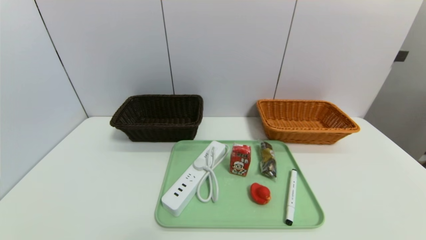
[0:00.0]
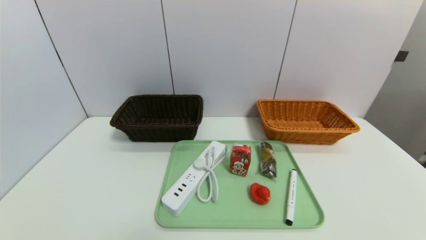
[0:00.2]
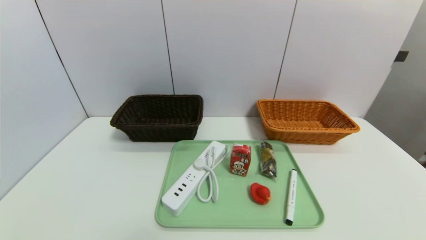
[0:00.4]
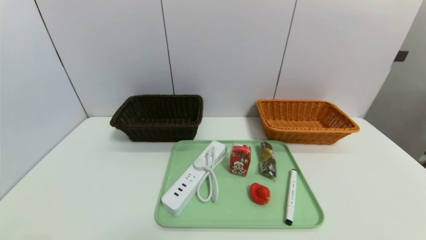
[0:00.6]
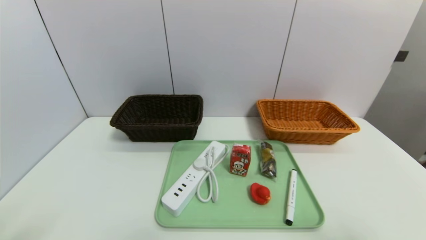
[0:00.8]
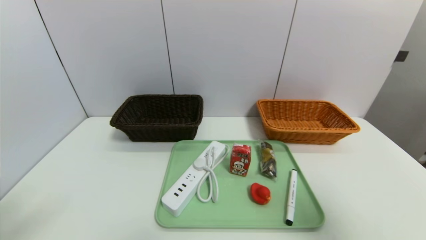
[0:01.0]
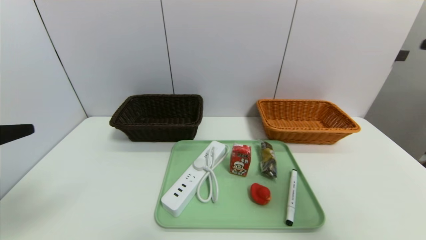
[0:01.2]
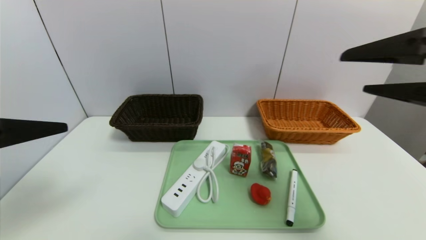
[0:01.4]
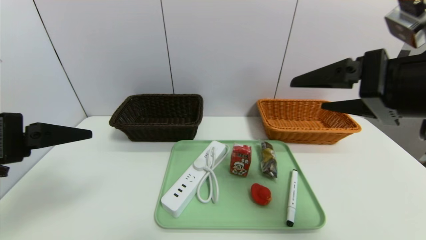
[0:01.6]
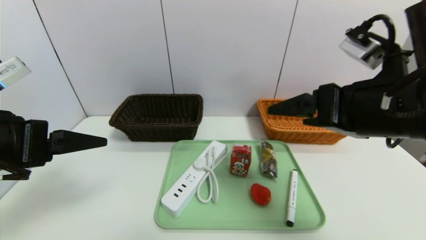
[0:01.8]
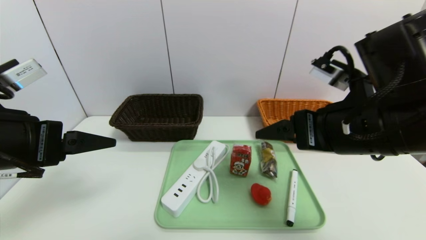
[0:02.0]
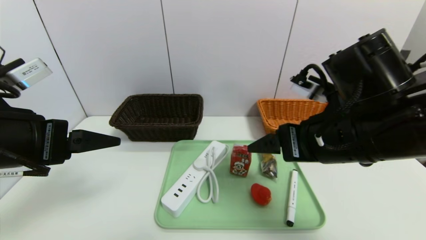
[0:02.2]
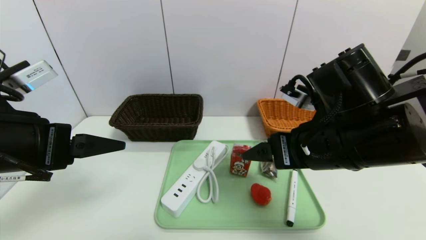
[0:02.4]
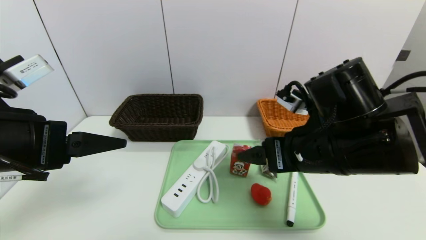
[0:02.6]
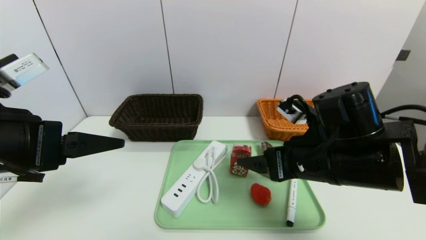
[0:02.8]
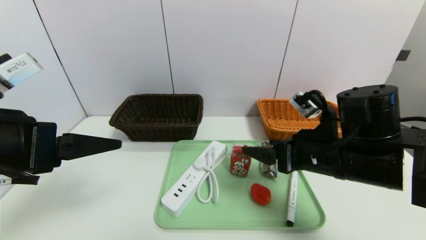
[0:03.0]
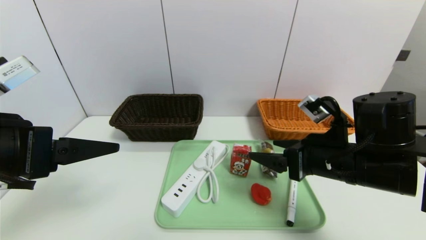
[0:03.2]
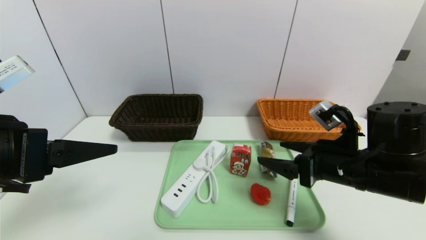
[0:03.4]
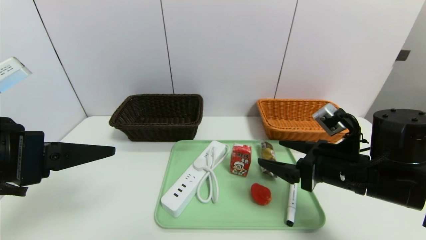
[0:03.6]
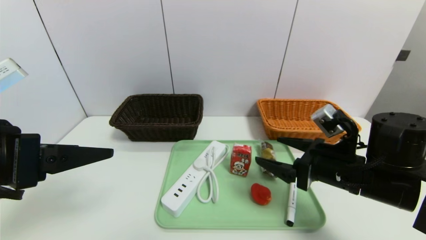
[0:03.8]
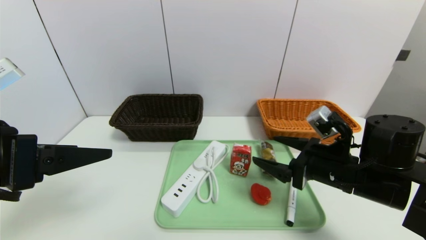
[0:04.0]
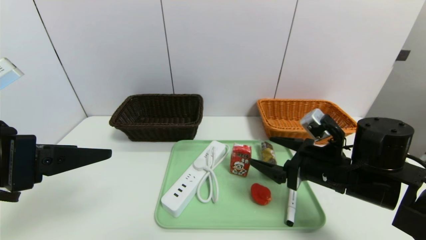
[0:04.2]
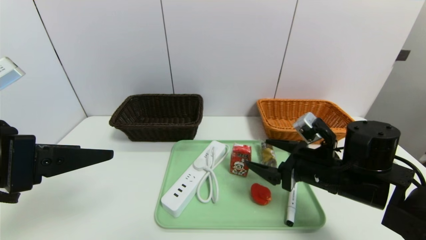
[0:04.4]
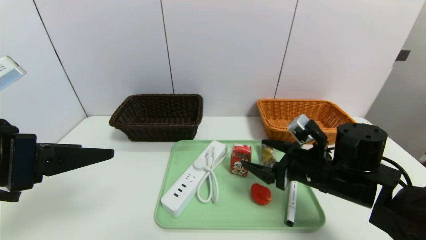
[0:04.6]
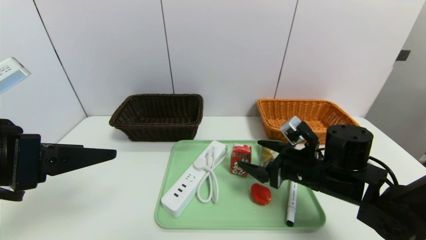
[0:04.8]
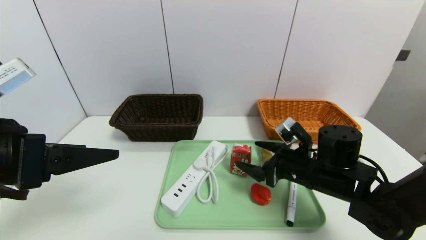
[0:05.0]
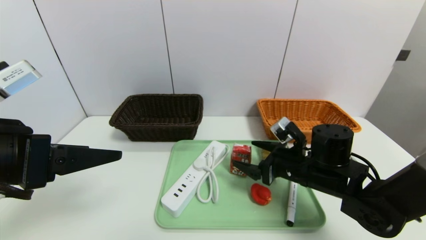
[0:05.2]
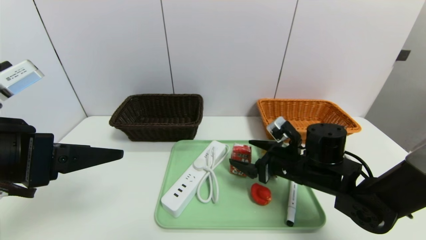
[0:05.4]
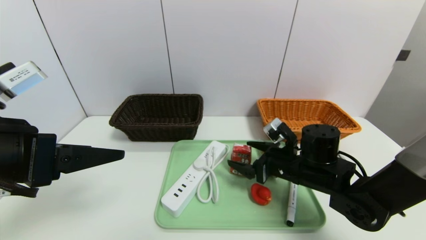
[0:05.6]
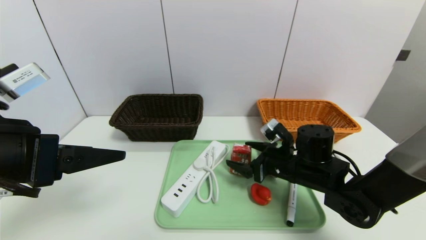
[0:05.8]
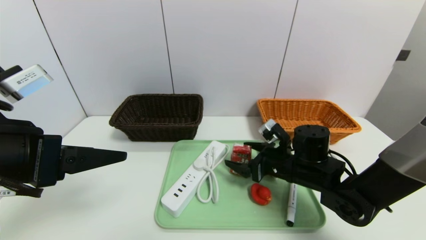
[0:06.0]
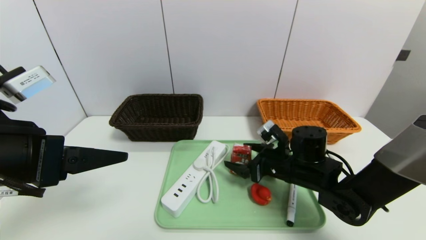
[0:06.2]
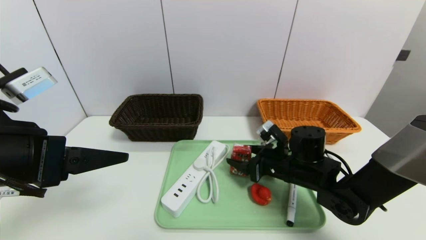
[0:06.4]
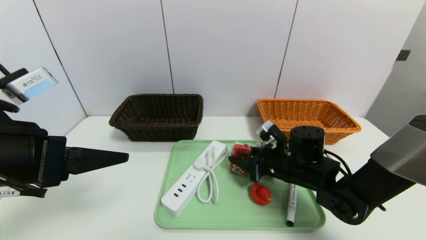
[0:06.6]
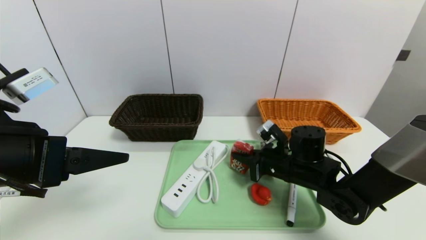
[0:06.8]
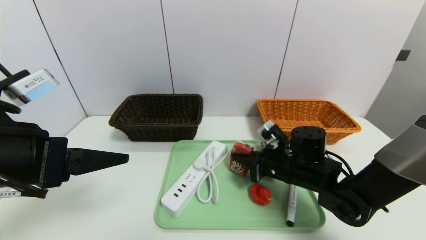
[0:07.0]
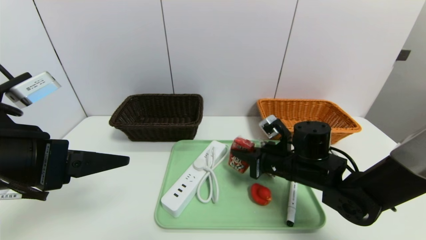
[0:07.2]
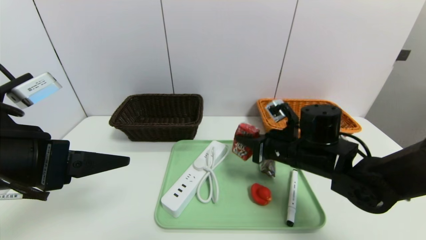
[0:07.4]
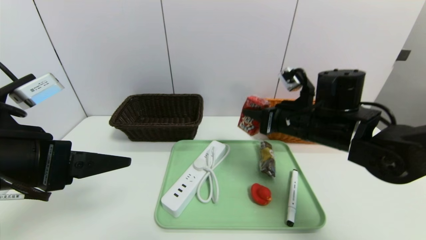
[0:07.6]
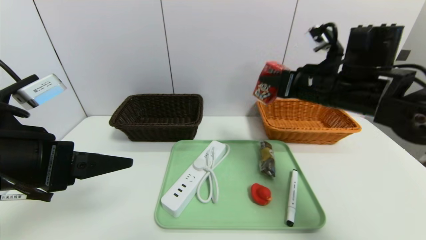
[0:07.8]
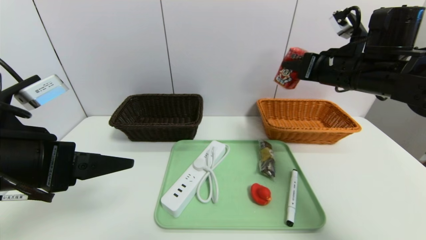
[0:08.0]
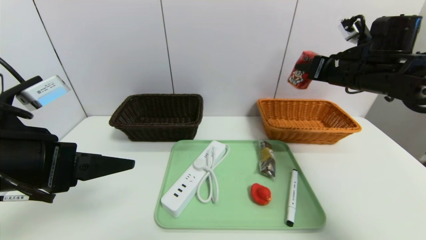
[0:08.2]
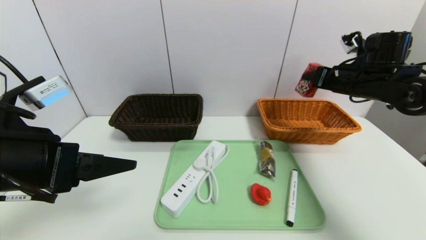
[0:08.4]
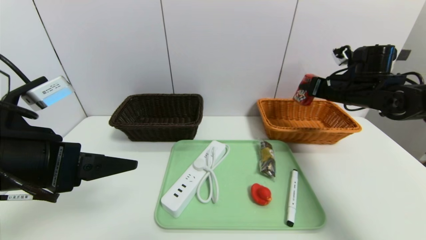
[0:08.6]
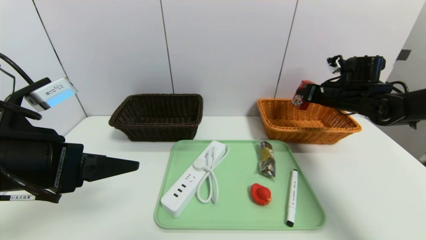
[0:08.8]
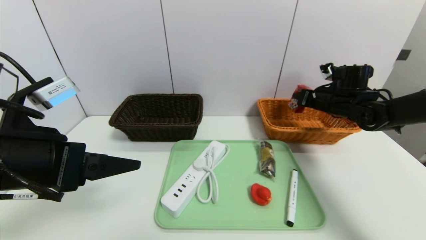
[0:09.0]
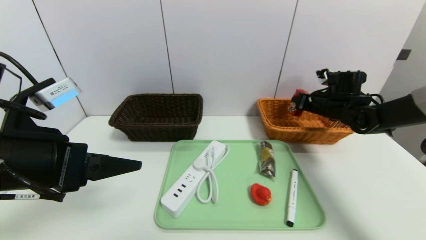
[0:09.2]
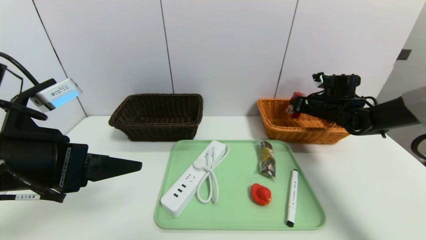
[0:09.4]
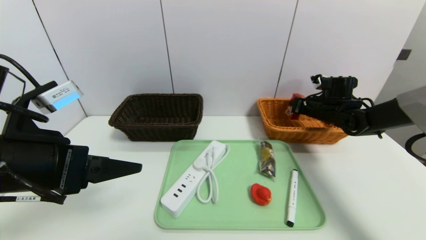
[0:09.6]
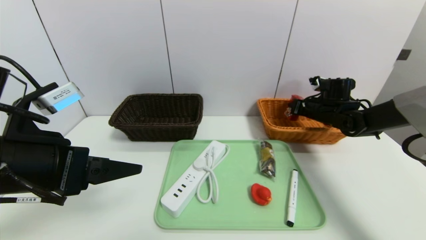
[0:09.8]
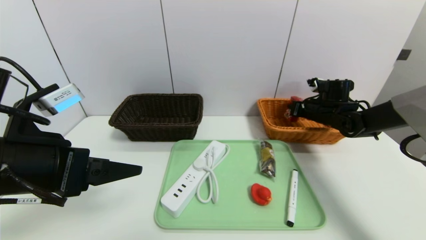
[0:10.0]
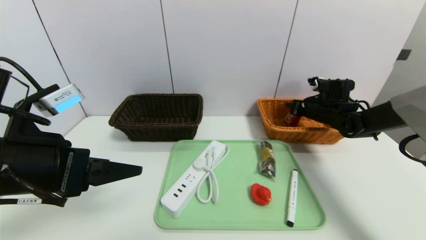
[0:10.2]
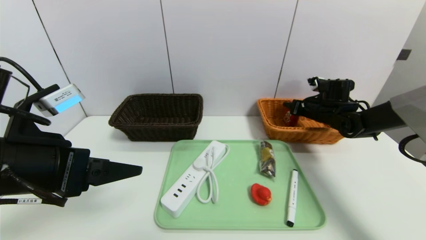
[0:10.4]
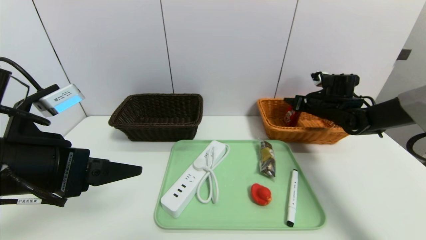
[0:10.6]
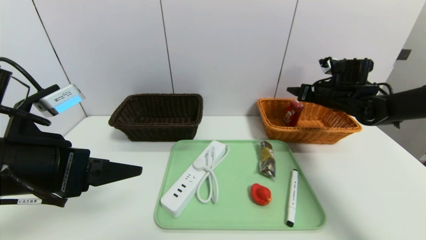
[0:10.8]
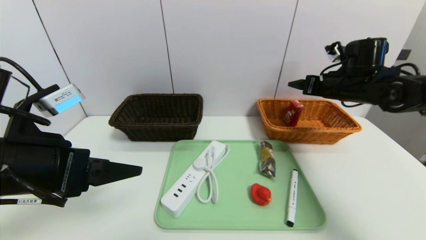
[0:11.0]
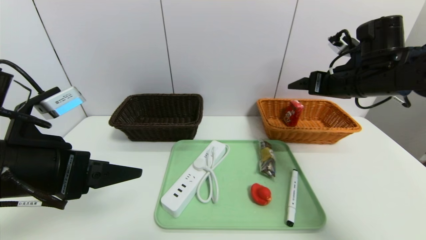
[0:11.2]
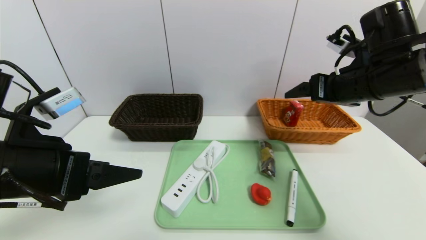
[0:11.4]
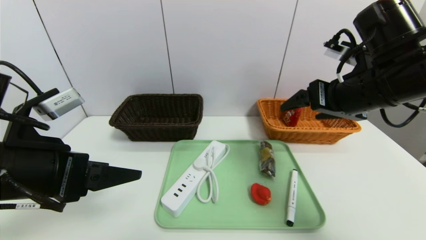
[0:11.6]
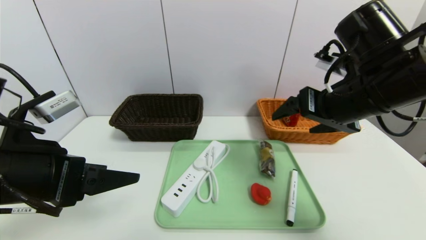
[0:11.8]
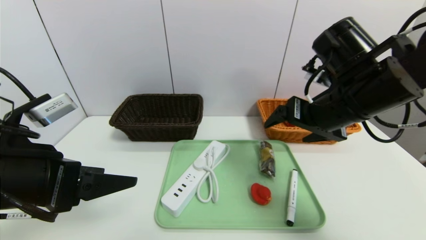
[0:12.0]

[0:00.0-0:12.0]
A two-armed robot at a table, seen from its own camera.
Task of the whole recording: place the food in the right basket with the right gripper, and place the non food items in the left basket with the left gripper.
Step, 0:00.0 to 0:11.0: Grasp the milk and put it in the right basket.
0:00.0 to 0:01.6: The left gripper heads upward and forward, covering roughly 25 cm. Meanwhile the right gripper shifts about 35 cm upward, forward and to the left.
0:01.6 to 0:03.0: The right gripper travels downward by roughly 15 cm.
0:03.0 to 0:04.4: The right gripper shifts approximately 5 cm downward.
0:04.4 to 0:06.0: The right gripper shifts approximately 5 cm forward.
0:06.0 to 0:07.6: The right gripper shifts some 10 cm upward, and closes up.
0:07.6 to 0:09.0: The right gripper shifts some 20 cm to the right and forward.
0:09.0 to 0:10.4: The right gripper changes place by approximately 5 cm, and opens its fingers.
0:10.4 to 0:12.0: The right gripper travels backward, upward and to the left by approximately 25 cm, and opens its fingers.

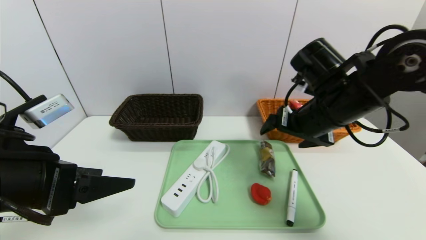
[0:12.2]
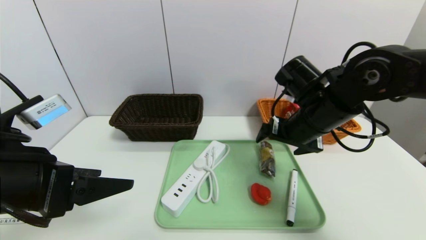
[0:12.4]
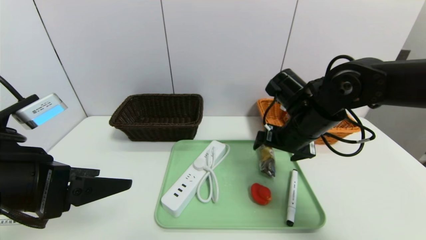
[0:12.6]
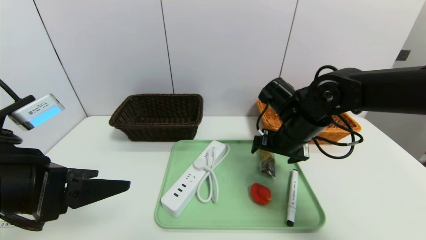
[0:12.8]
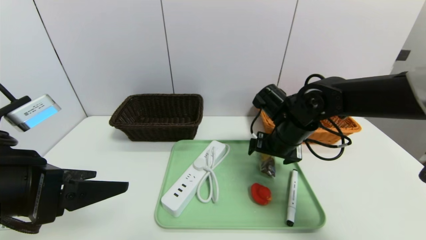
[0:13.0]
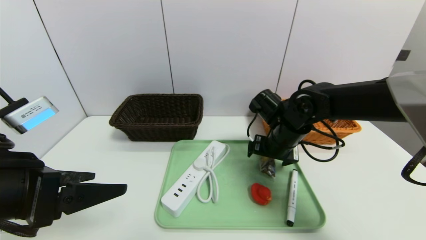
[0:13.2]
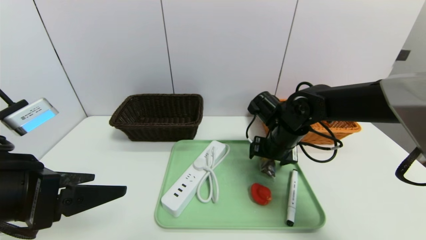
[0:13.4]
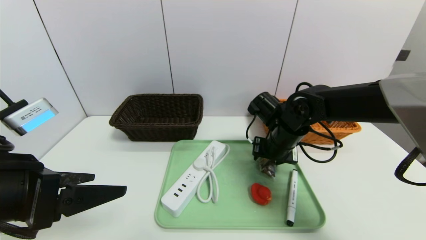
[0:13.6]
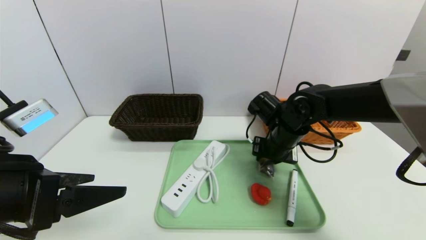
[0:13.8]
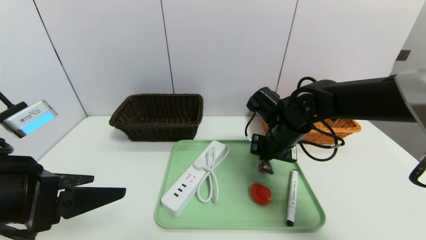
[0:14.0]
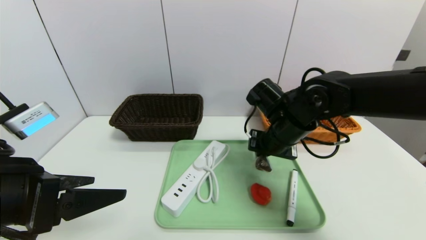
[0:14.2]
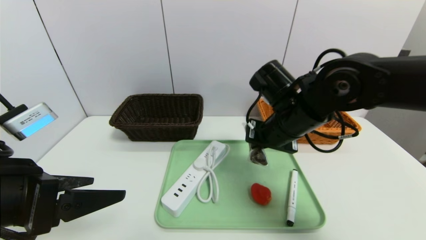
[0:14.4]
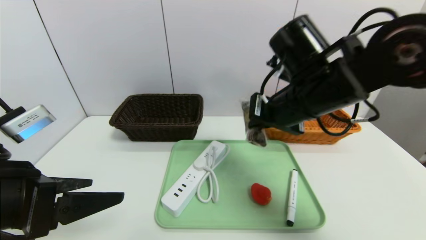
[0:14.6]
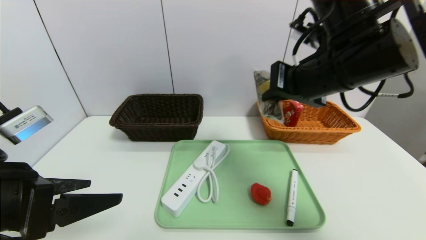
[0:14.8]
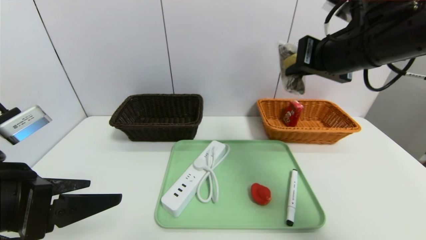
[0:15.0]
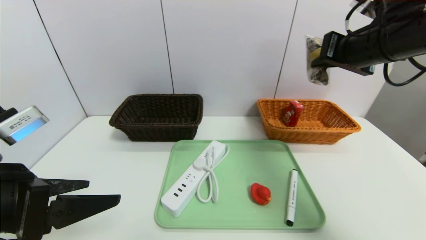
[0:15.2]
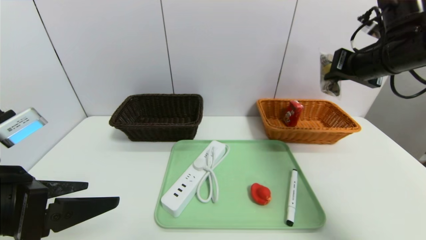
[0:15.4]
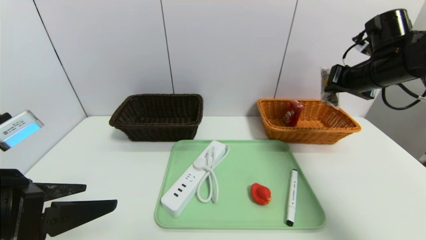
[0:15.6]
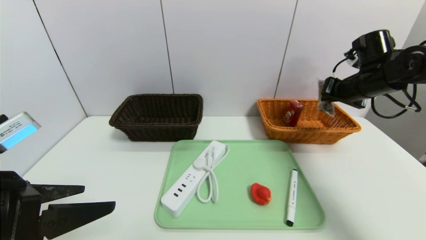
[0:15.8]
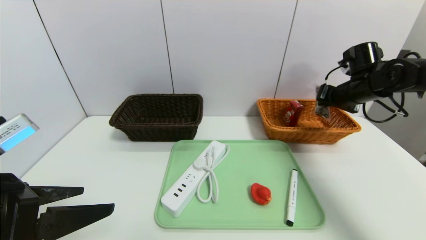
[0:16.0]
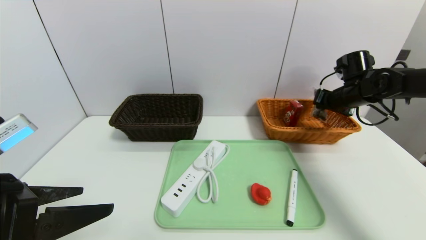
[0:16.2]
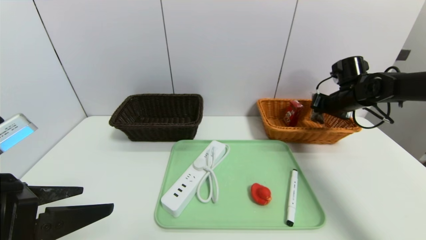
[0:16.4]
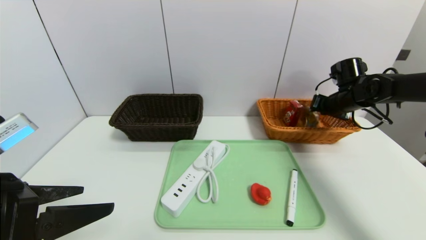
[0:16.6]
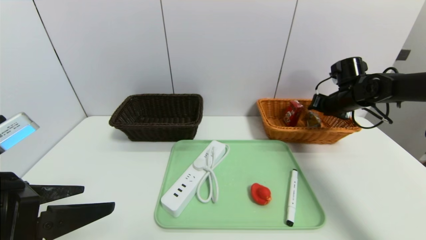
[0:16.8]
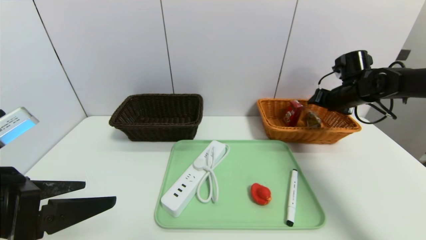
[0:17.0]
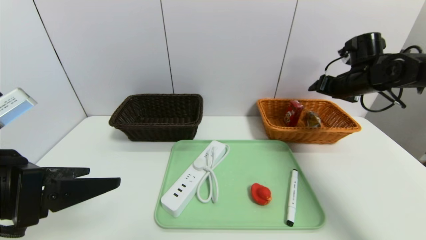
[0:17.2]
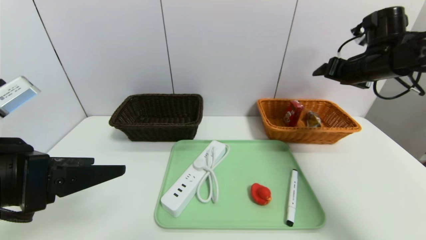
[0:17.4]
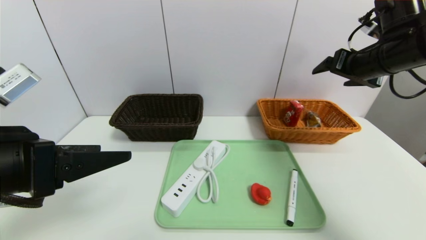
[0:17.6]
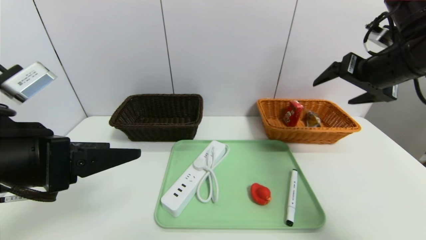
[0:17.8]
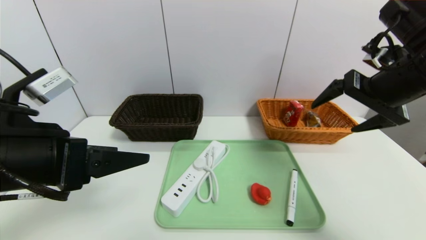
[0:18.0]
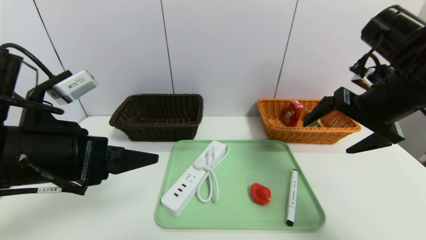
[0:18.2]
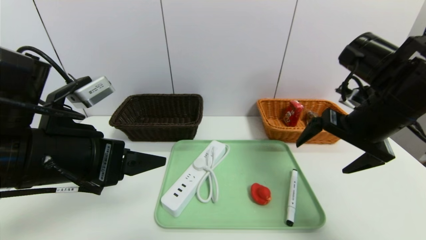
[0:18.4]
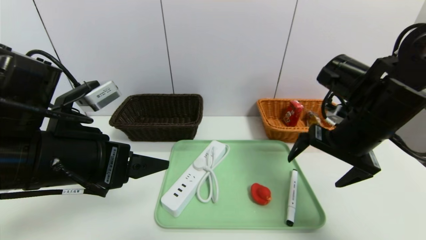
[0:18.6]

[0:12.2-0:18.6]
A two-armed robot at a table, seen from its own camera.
Task of the whole recording: place the food in the right basket with the right gripper, and place the non food items in the left basket with the left gripper.
Step, 0:12.2 to 0:17.0: Grasp the chocolate and put it in the right basket.
0:12.2 to 0:13.8: The right gripper travels downward and forward by approximately 10 cm, and closes its fingers.
0:13.8 to 0:15.4: The right gripper heads upward and to the right, covering about 25 cm, and closes up.
0:15.4 to 0:17.0: The right gripper is displaced downward and forward by some 15 cm, and opens its fingers.
0:17.0 to 0:18.6: The left gripper heads forward and to the right, covering some 10 cm. The right gripper moves backward and to the left, roughly 20 cm.
